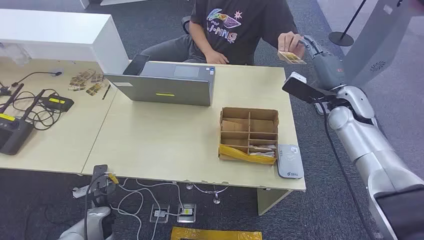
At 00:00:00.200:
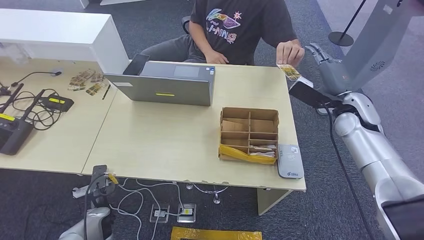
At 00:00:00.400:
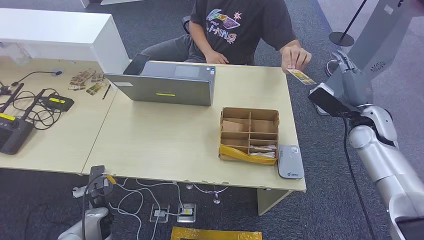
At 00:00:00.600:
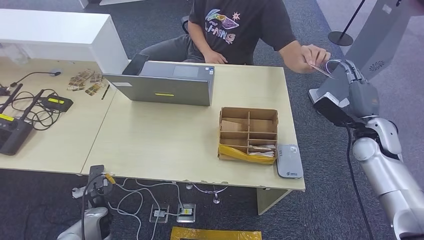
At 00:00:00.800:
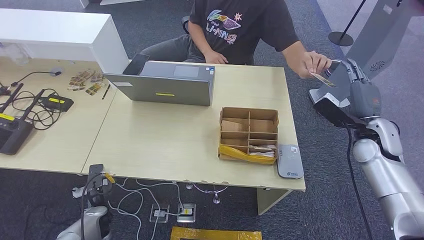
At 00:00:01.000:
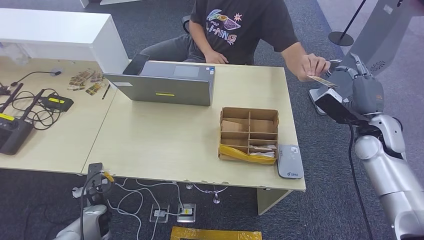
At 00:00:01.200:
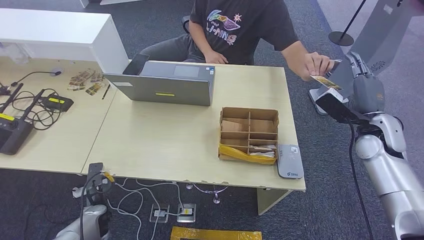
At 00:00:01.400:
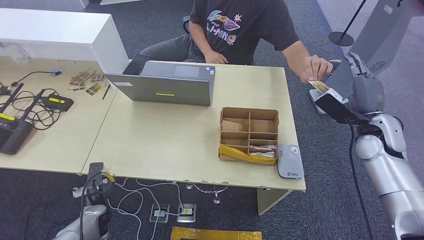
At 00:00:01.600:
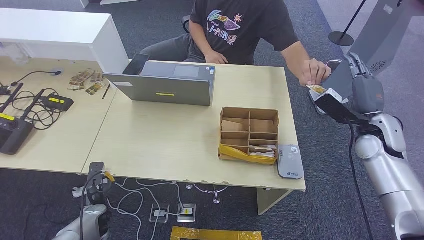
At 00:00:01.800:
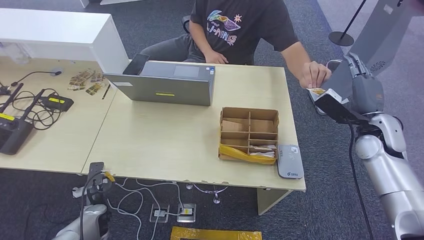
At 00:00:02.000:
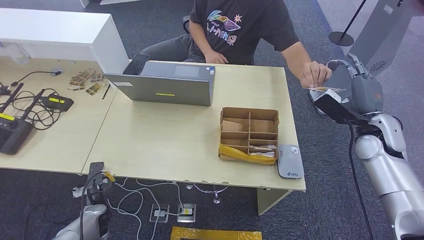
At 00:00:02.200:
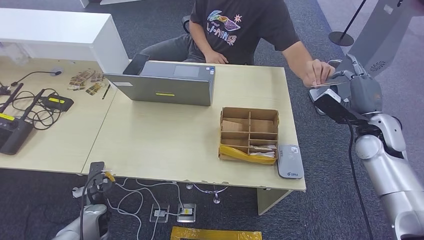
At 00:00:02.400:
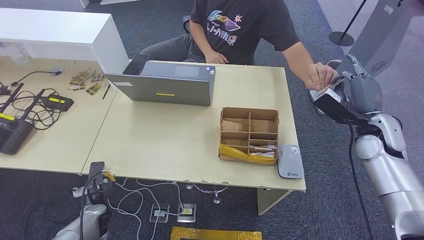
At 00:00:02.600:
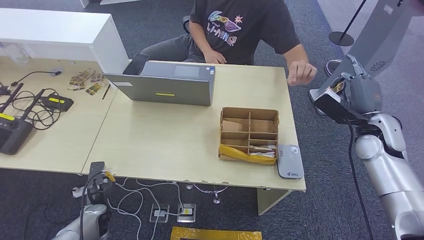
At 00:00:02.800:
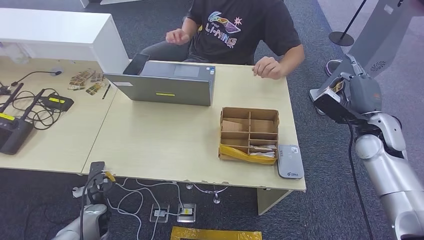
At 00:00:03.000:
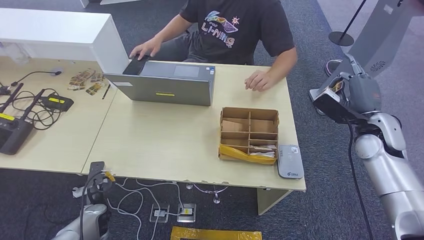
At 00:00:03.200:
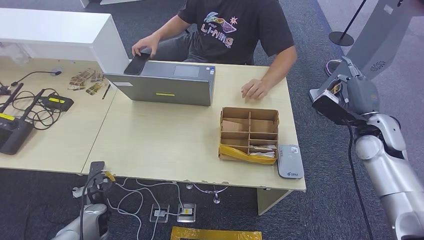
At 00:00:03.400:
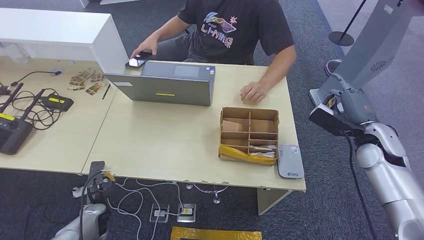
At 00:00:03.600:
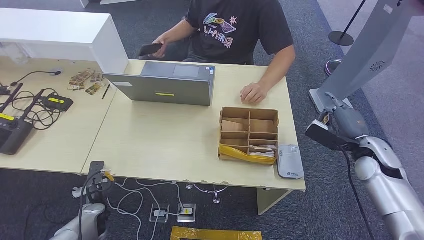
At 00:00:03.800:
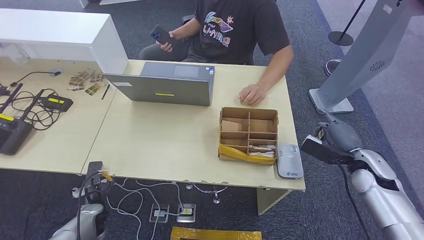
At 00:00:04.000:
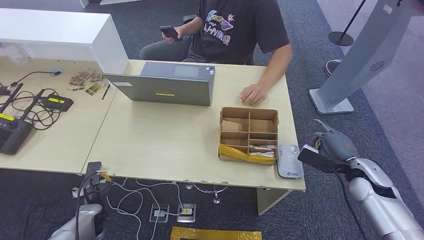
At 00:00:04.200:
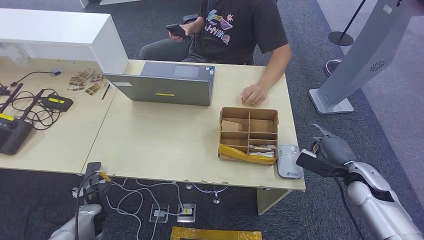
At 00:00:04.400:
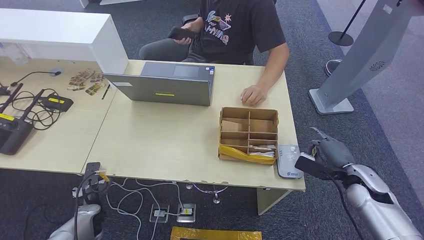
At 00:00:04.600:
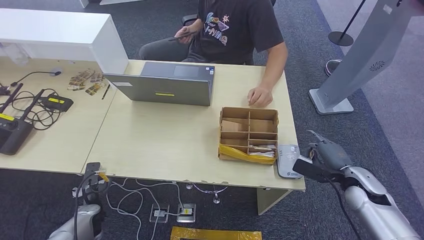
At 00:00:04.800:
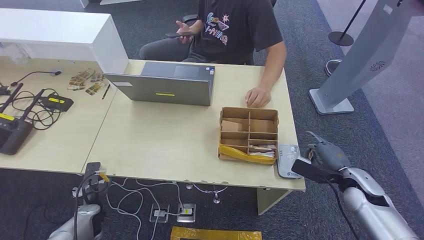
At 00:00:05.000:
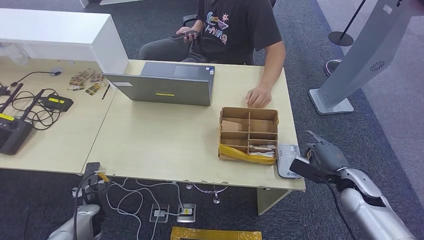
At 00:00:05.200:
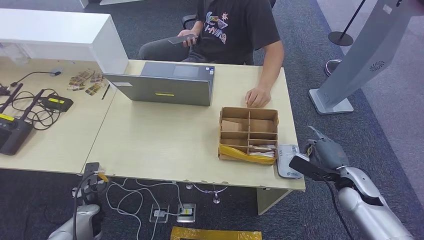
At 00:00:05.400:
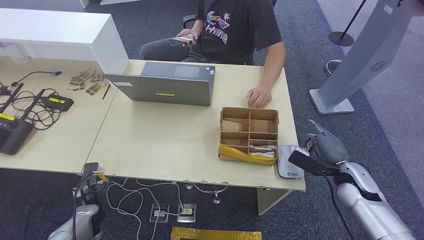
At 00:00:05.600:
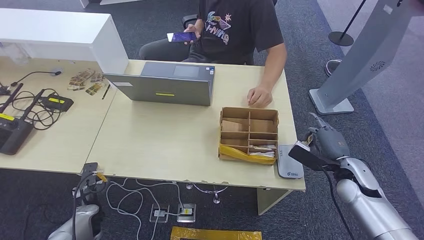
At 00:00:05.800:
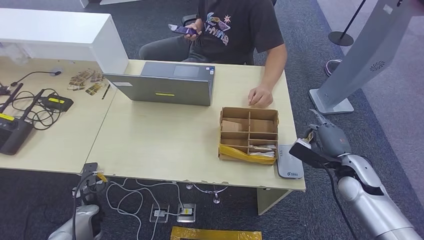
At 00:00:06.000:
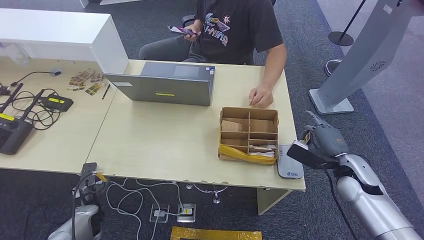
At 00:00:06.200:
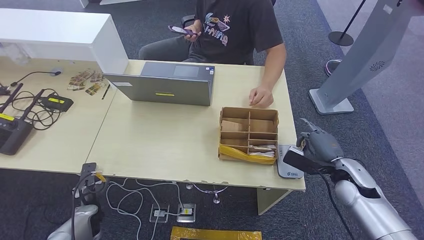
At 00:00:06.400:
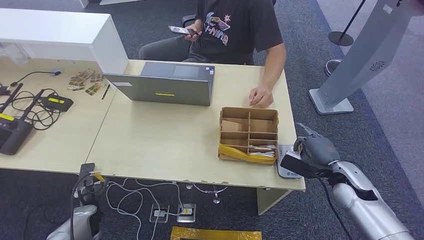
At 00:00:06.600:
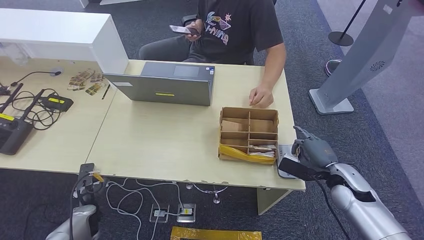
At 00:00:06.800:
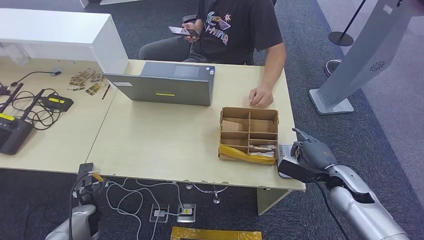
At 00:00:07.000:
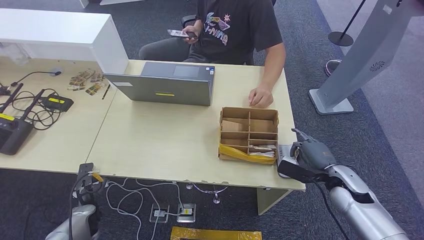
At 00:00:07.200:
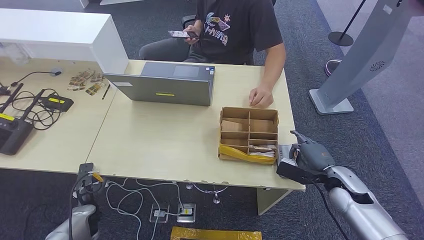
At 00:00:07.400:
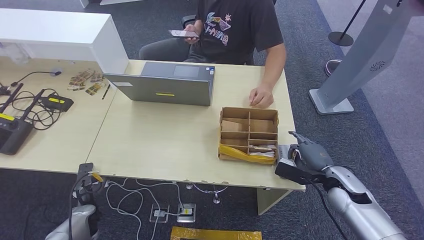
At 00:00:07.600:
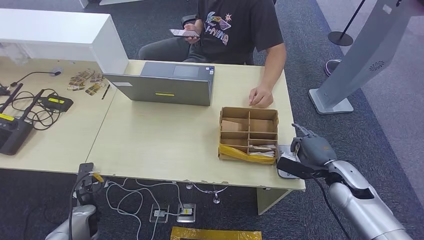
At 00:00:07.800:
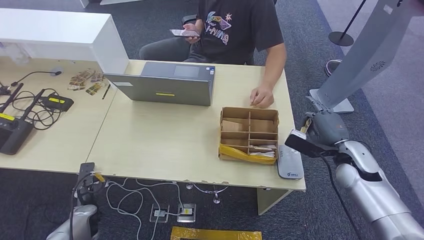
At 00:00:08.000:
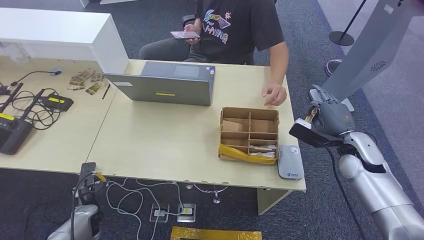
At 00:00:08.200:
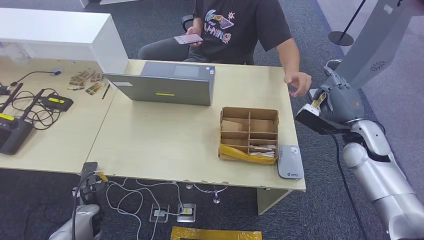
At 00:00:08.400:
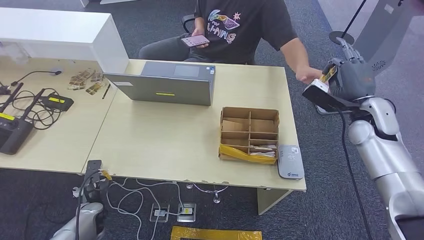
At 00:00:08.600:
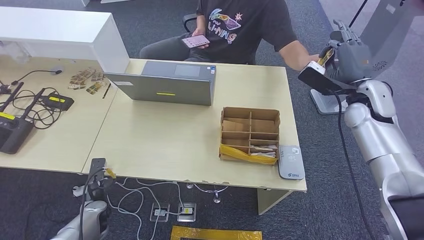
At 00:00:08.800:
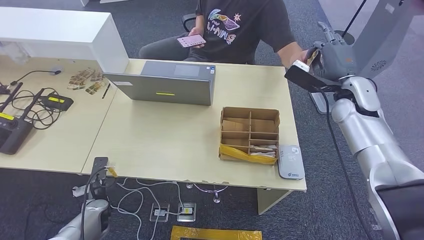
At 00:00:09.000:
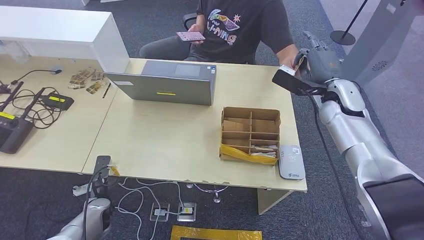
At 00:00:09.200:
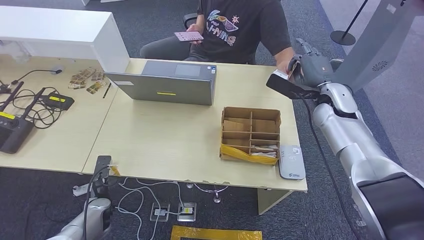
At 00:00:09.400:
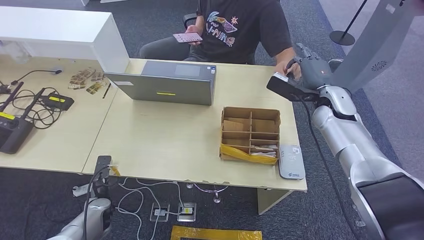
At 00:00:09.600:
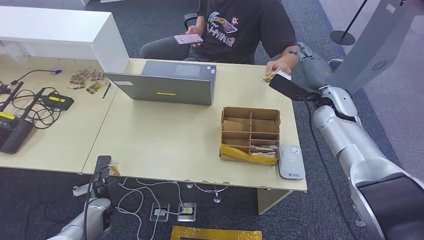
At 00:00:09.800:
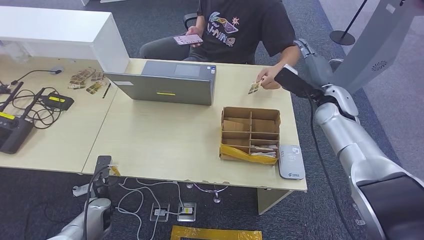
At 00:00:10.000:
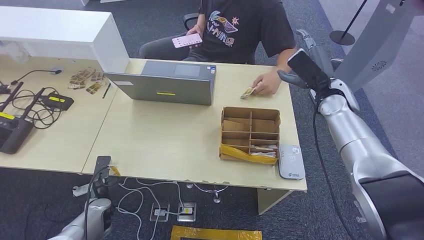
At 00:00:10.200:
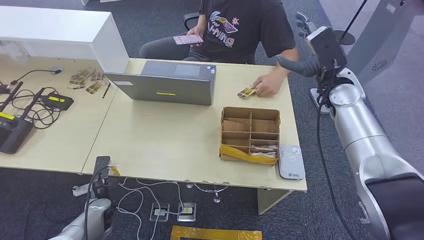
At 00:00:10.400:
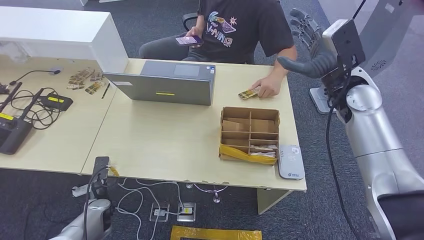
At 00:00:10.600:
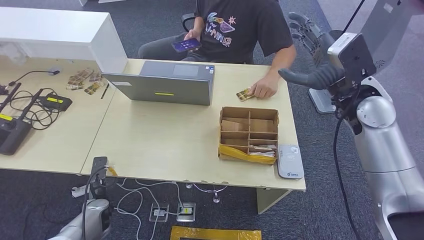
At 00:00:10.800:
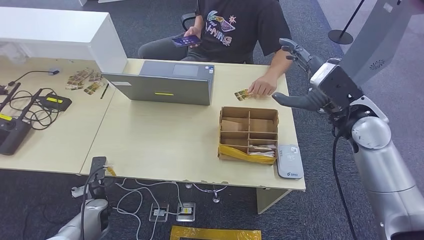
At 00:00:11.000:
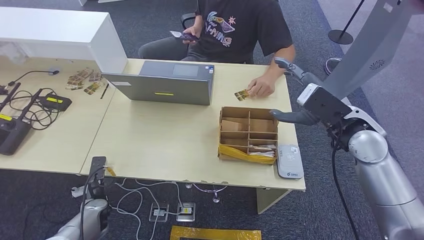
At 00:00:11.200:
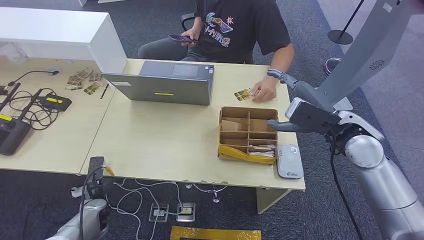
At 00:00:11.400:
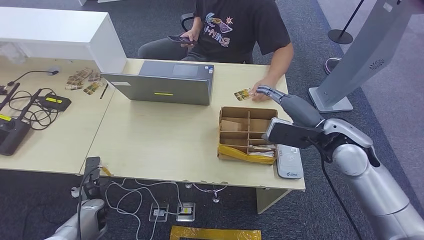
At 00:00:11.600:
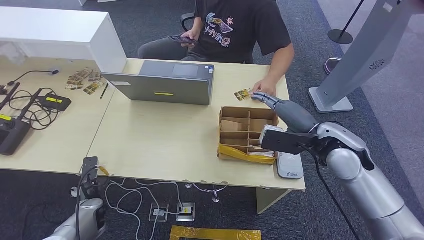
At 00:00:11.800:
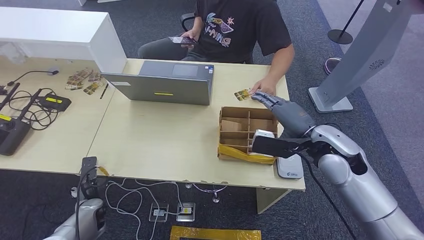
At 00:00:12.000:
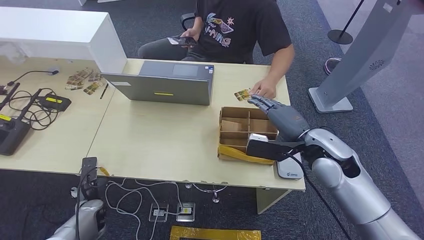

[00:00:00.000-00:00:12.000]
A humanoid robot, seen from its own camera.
Step, 00:00:00.000 to 00:00:02.600: Take the ID card from the person's hand.
Step, 00:00:02.800 to 00:00:07.400: Place the ID card on the card reader.
Step, 00:00:07.600 to 00:00:09.200: Hand the ID card to the person.
00:00:01.600 to 00:00:03.000: Both hands stay put.
00:00:03.000 to 00:00:04.400: The right hand goes about 15 cm downward and backward.
00:00:04.400 to 00:00:07.600: The hands move only a little.
00:00:09.000 to 00:00:10.400: The right hand shifts roughly 5 cm upward.

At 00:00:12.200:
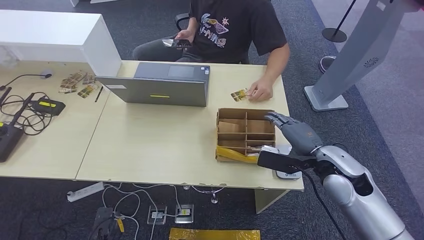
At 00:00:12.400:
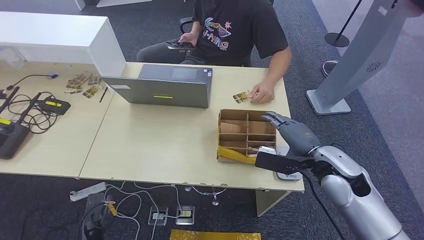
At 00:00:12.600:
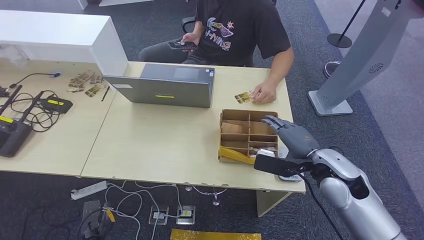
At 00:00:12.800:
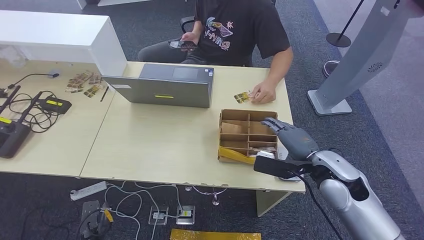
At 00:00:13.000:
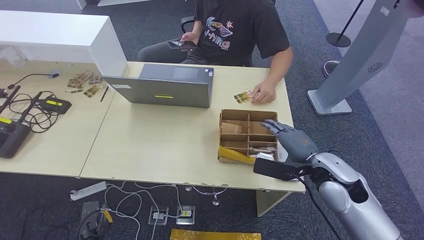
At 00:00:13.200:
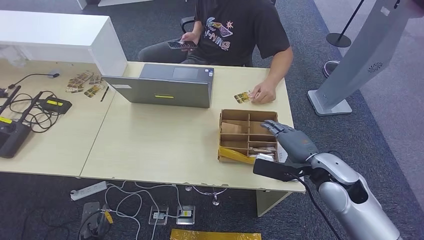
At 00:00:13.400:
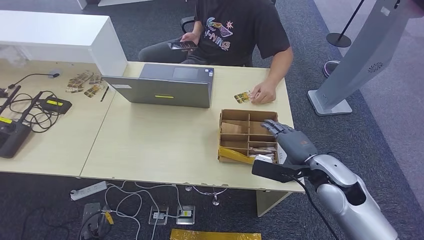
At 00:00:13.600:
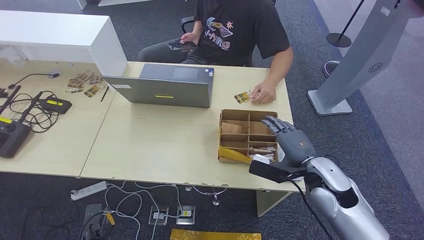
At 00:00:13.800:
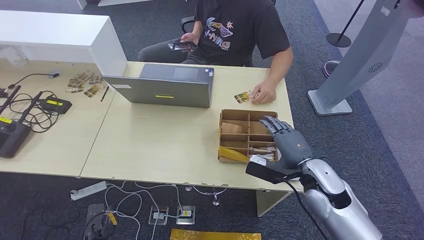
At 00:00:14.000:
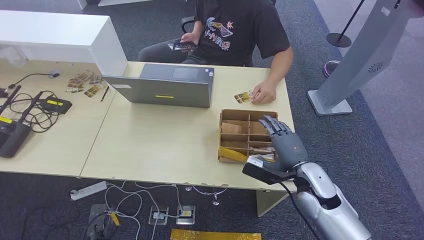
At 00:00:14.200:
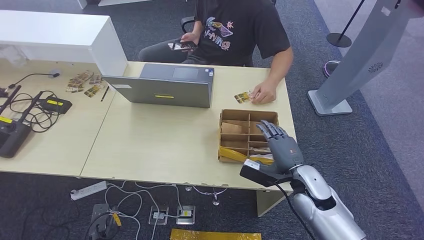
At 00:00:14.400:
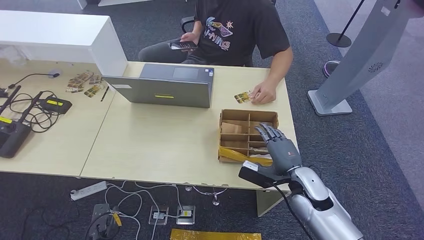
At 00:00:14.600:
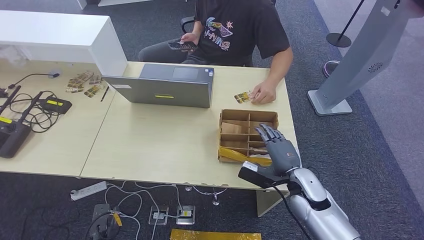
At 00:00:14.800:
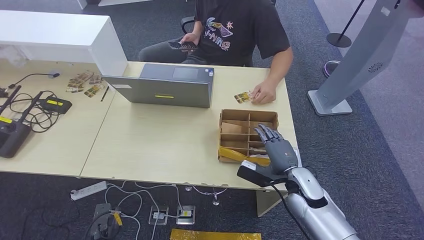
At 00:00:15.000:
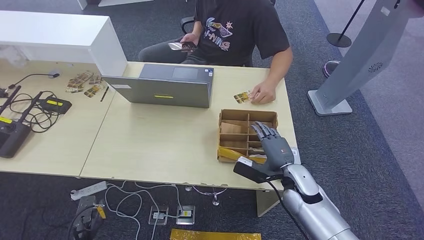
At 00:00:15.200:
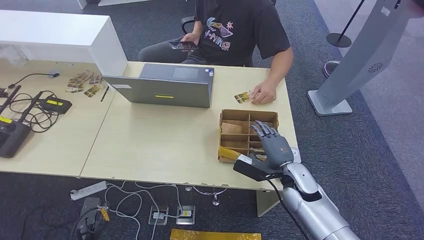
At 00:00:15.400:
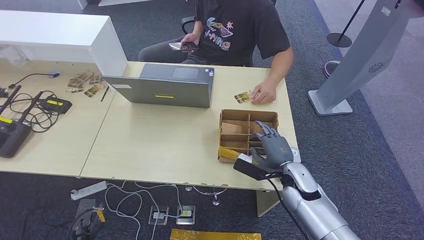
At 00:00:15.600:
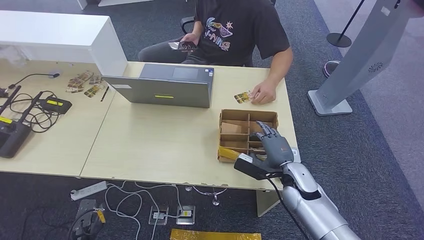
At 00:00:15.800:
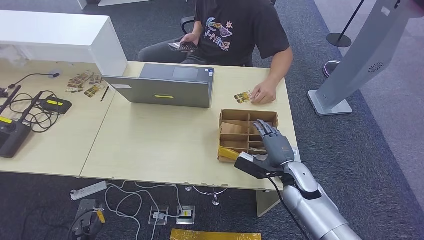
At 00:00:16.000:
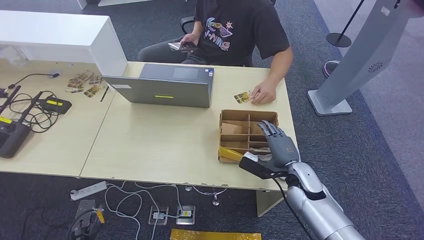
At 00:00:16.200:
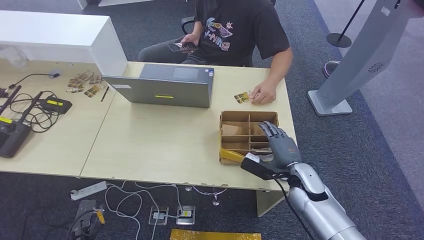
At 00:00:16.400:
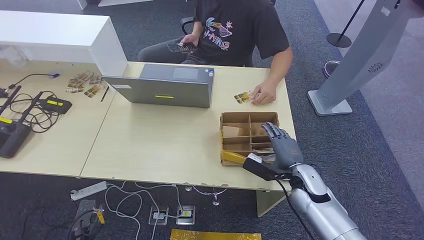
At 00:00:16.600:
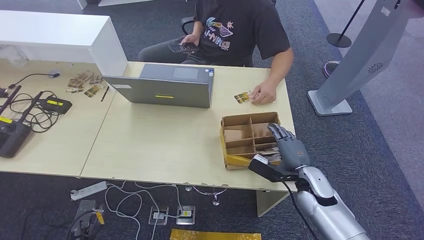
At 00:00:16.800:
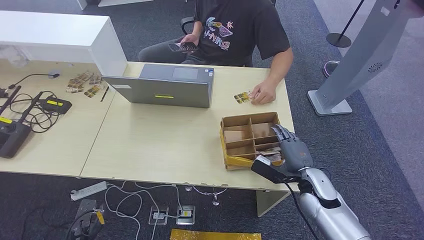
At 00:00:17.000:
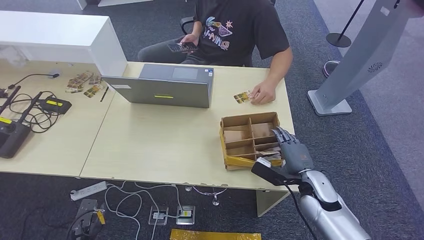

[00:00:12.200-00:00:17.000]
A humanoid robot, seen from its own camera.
00:00:13.800 to 00:00:15.400: The left hand travels to the left by some 5 cm, while the right hand goes approximately 5 cm downward.
00:00:15.400 to 00:00:17.000: The right hand changes place by some 5 cm.
